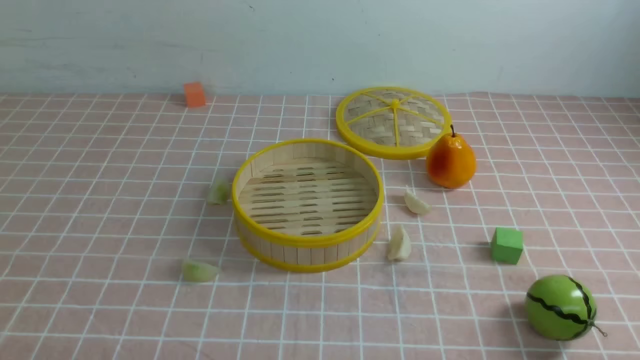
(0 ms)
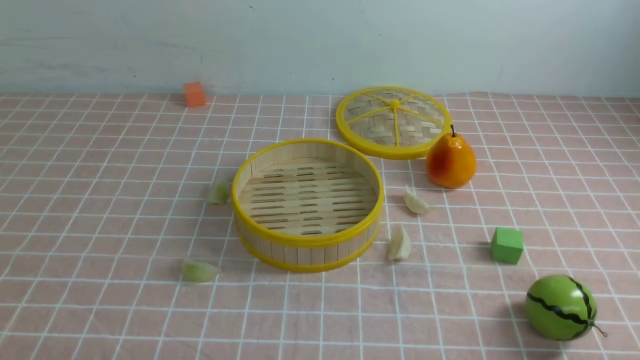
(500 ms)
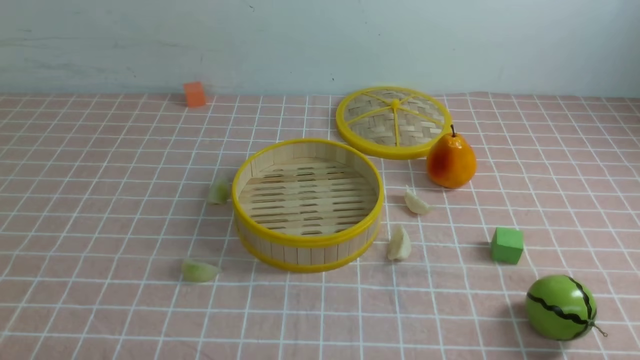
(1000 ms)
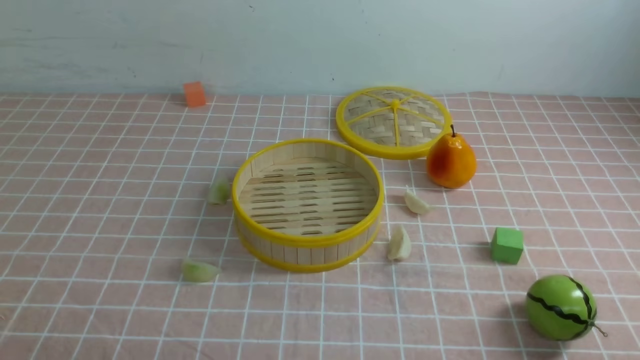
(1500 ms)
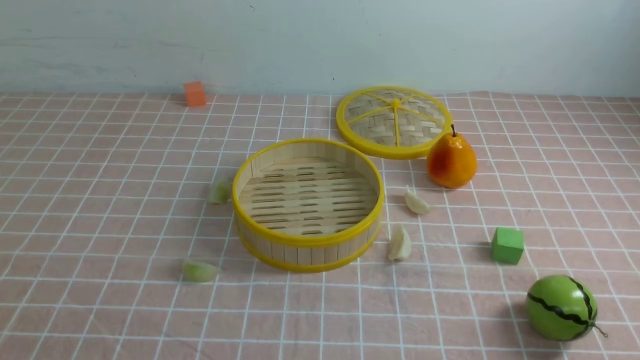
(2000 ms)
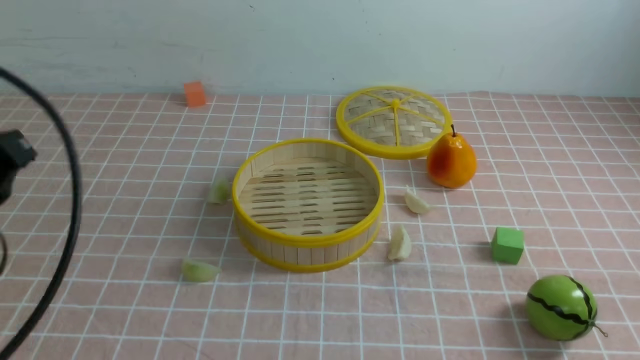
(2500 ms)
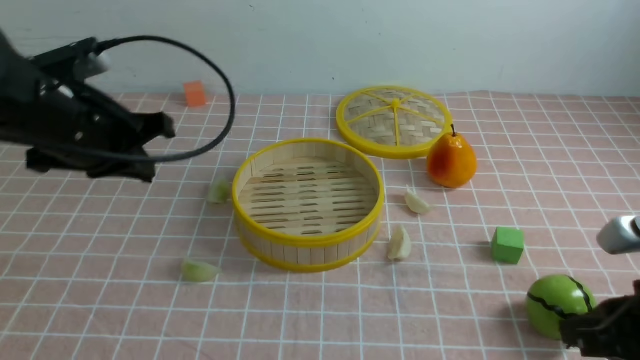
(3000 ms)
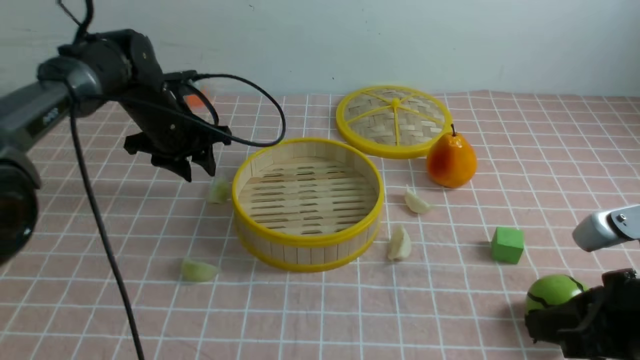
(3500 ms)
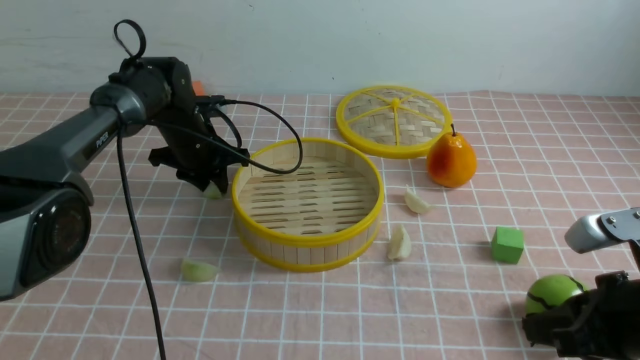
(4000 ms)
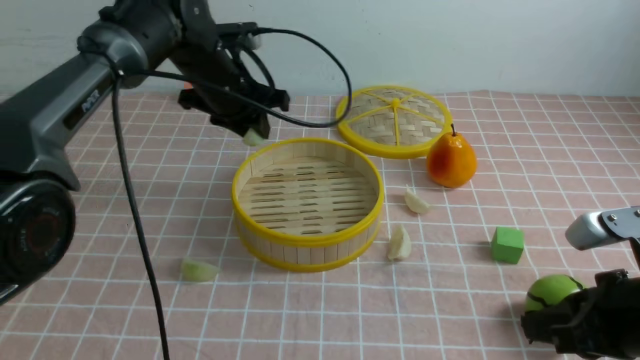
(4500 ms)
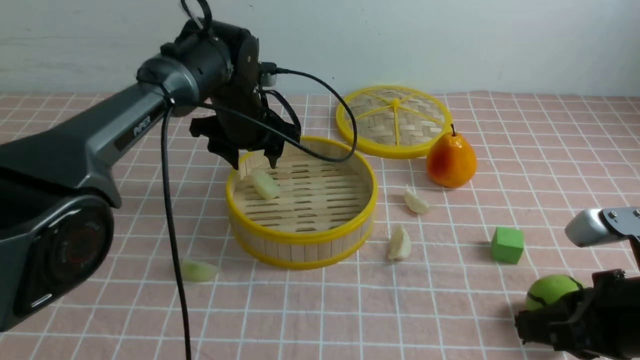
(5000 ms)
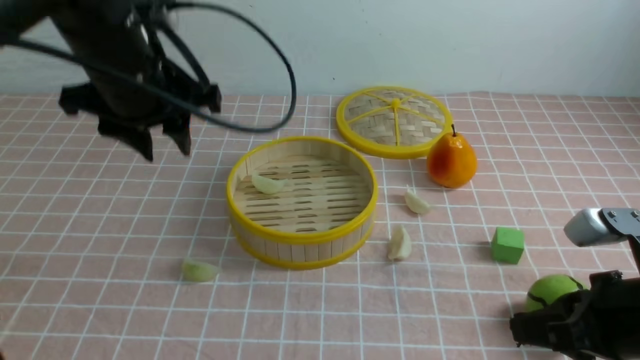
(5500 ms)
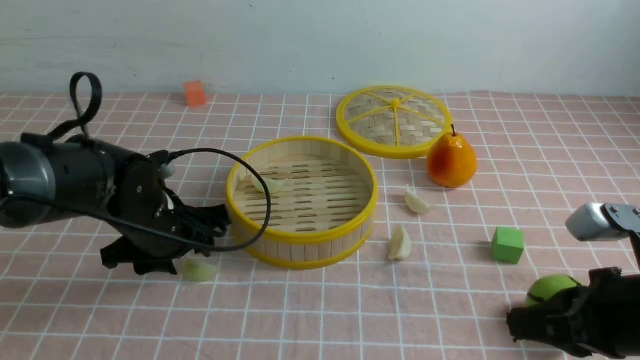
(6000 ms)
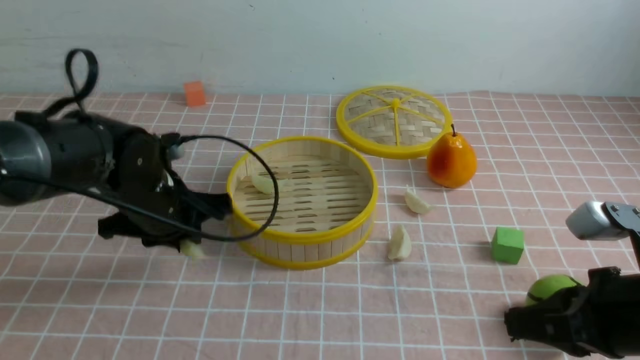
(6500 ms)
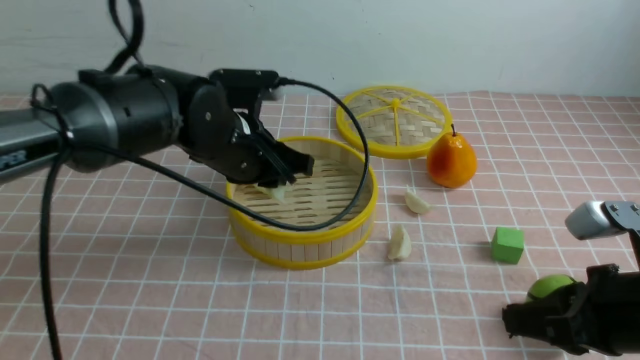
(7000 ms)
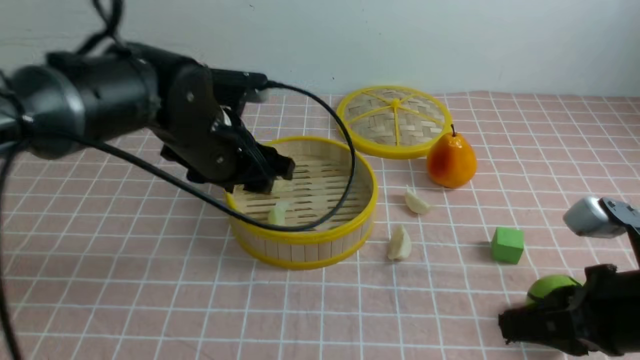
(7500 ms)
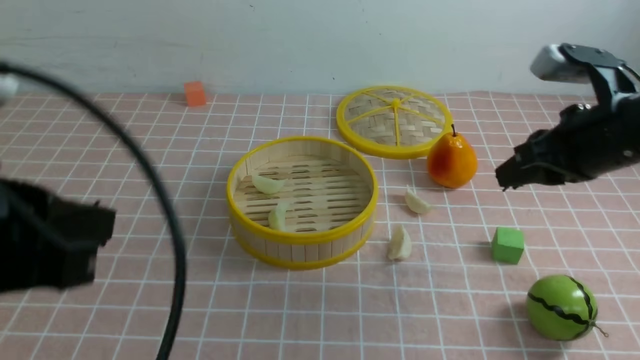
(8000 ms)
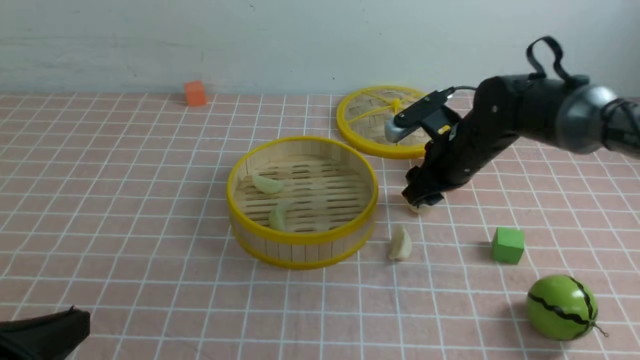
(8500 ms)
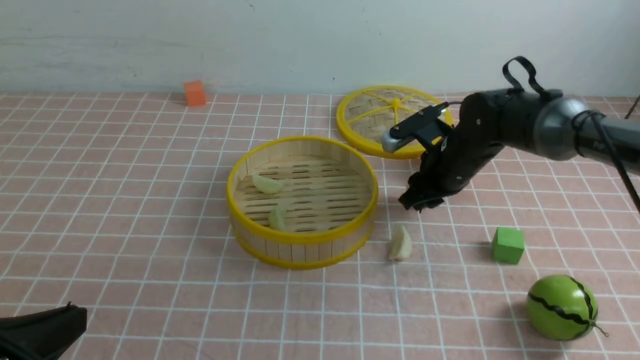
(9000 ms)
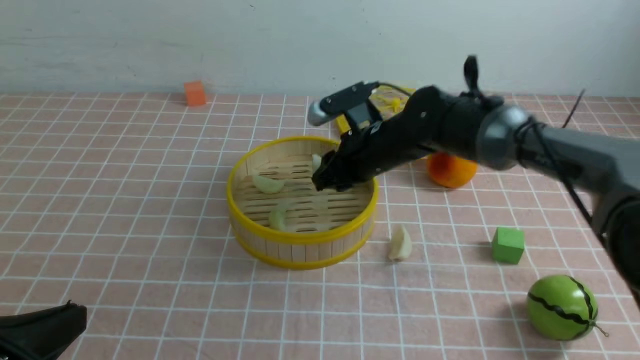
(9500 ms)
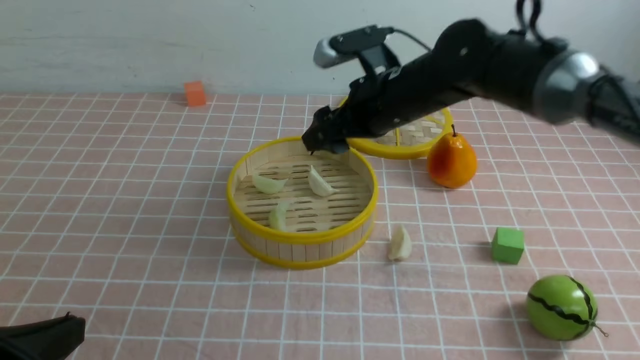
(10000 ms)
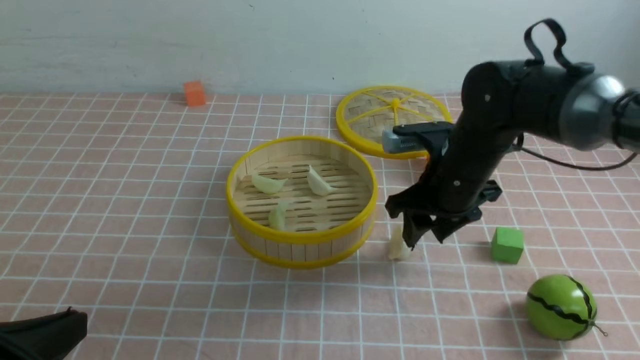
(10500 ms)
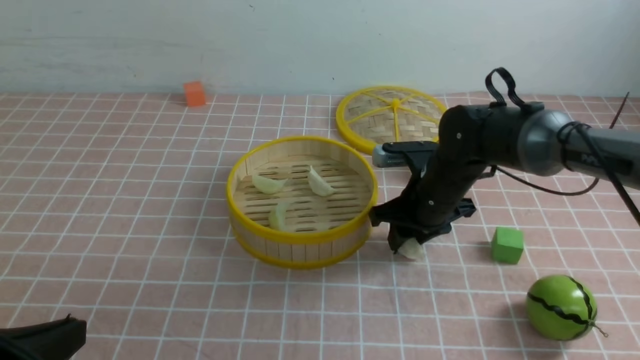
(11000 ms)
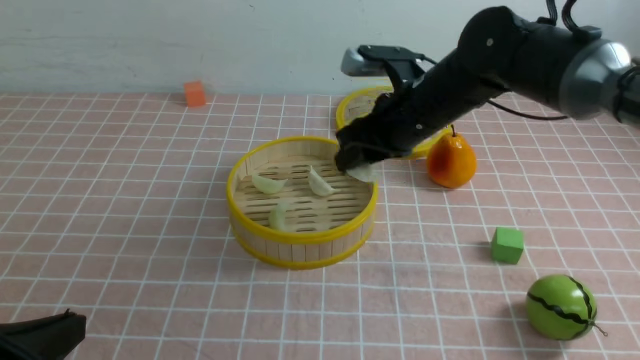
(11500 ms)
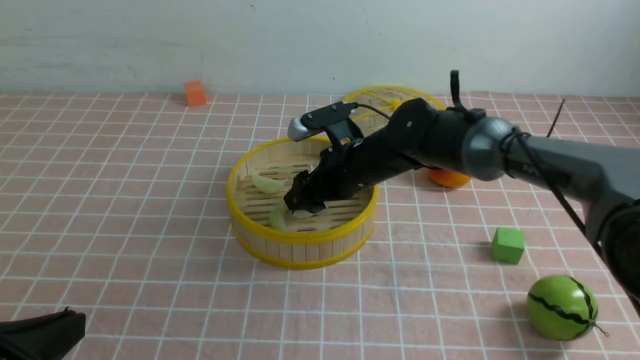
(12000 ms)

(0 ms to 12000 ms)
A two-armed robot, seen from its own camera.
Task of the whole recording: put the dumplings into the steamer on the table with the pink tablecloth.
Step, 0 ms - 4000 ms: use the left arm to grab a dumpling.
Step, 5000 ms - 6000 ms: use the left arm to grab a dumpling.
Step, 6500 ms - 7000 ms: use the left arm to put the dumpling into the steamer.
Step, 7500 ms - 8500 ms: use the right arm to grab a dumpling.
Step, 9000 ms - 9500 ms: use the right arm to put the dumpling into the steamer.
Step, 10000 ms - 11000 ms: use the right arm to grab a dumpling.
2000 ms - 4000 ms: The right gripper moves forward, approximately 15 cm, while the left gripper is displaced forward by approximately 50 cm.
4000 ms - 6000 ms: The left gripper is displaced backward by approximately 20 cm, and opens.
6000 ms - 8000 ms: The right gripper moves forward and upward, about 15 cm; the left gripper moves backward and upward, approximately 25 cm, and closes its fingers.
8000 ms - 10000 ms: The right gripper goes roughly 15 cm to the left and forward, and opens its fingers. The left gripper goes some 10 cm downward.
10000 ms - 12000 ms: The right gripper is displaced downward by some 5 cm, and closes and opens again.

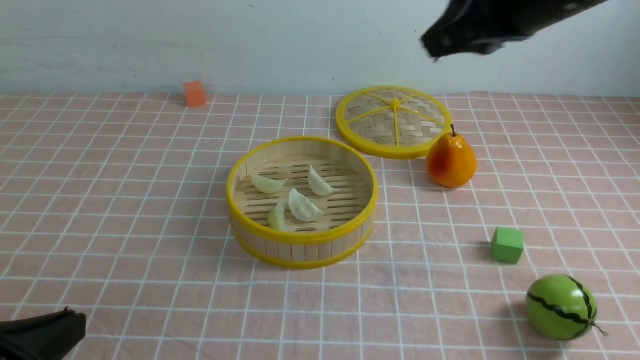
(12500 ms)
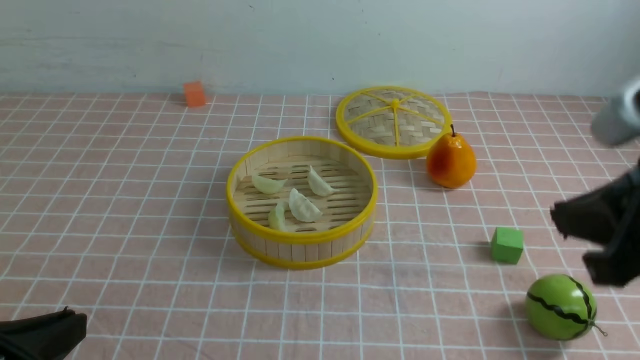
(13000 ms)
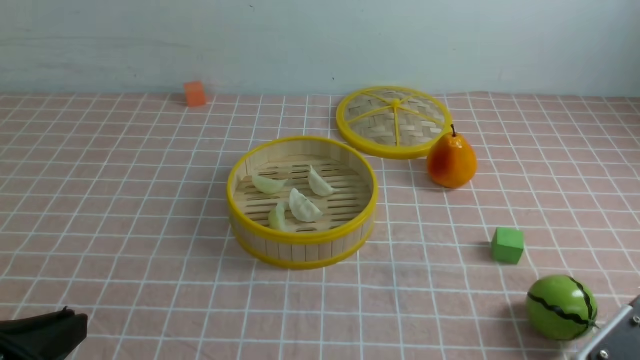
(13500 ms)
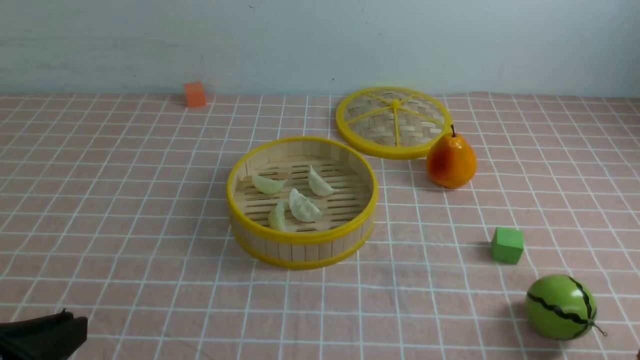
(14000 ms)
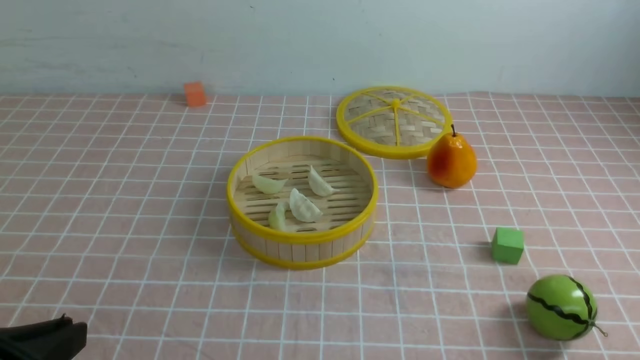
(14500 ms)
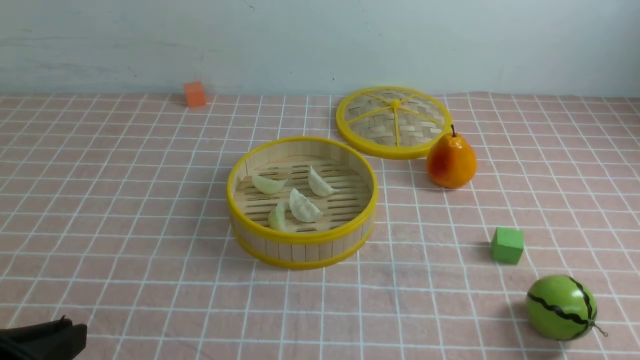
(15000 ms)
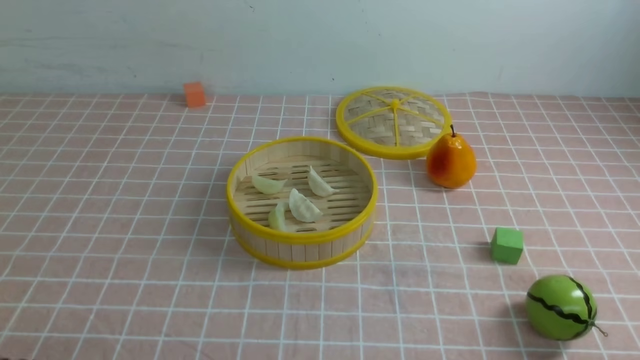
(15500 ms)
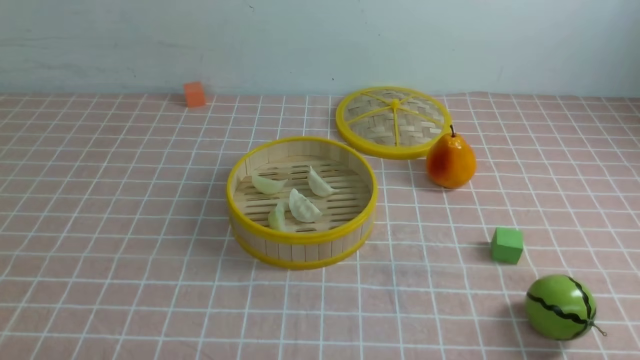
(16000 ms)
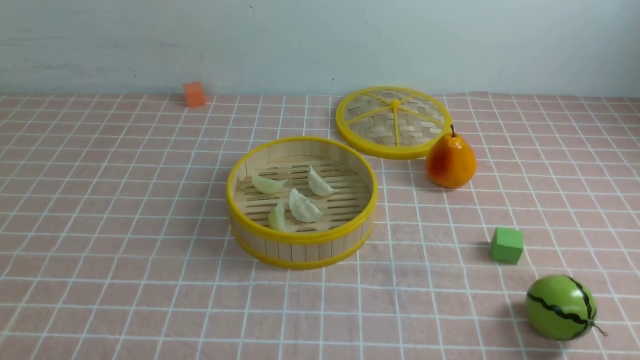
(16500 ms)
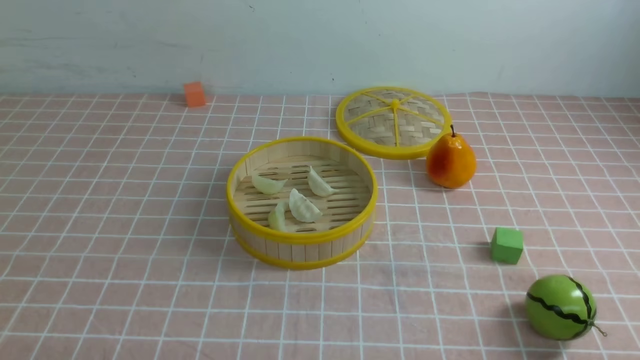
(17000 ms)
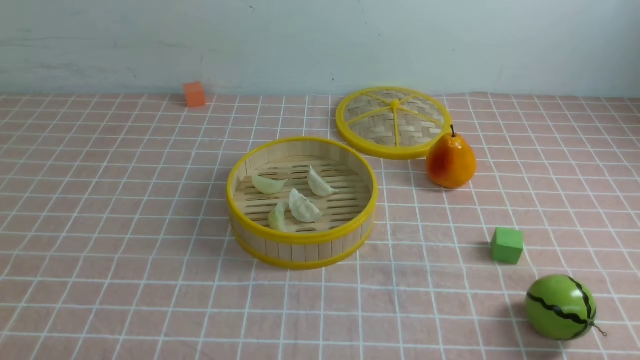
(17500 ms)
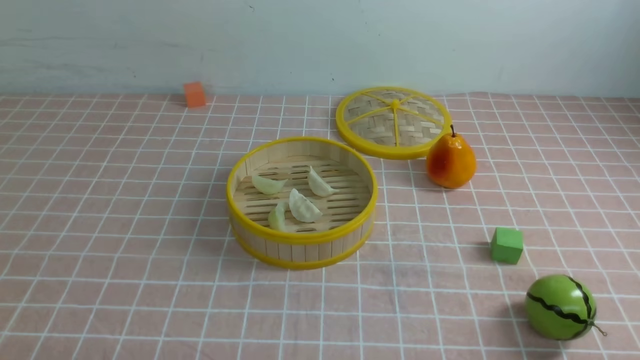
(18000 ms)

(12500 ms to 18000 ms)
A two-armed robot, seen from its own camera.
Task of the whole recording: put the dumplings into the steamer on the table with the pink tablecloth.
12500 ms - 14500 ms: The right gripper heads backward, downward and to the right, covering some 40 cm.
14500 ms - 16000 ms: The left gripper heads downward, covering approximately 10 cm.
16000 ms - 18000 ms: Both grippers stay put.
